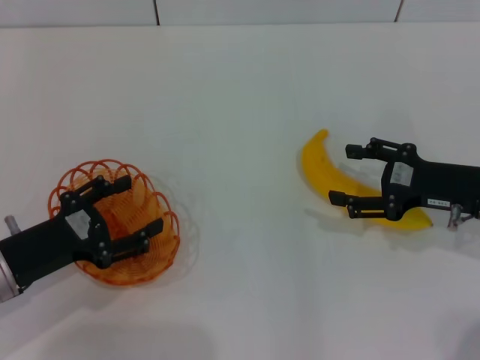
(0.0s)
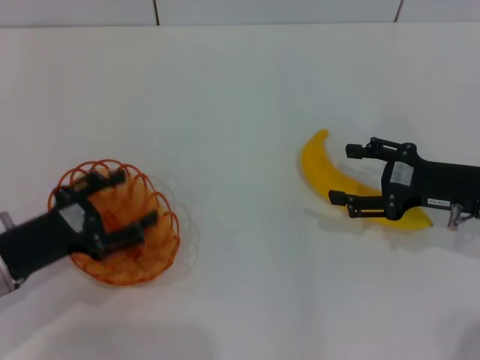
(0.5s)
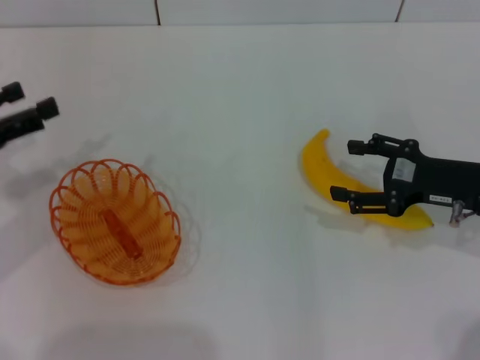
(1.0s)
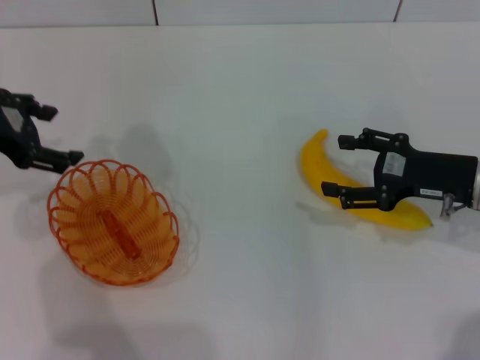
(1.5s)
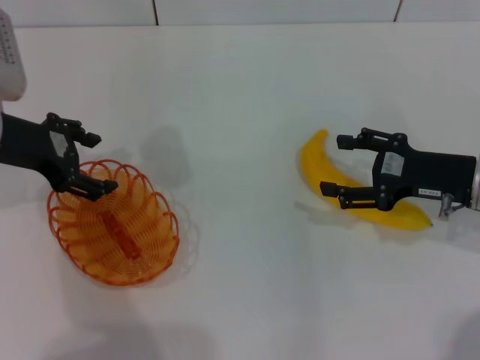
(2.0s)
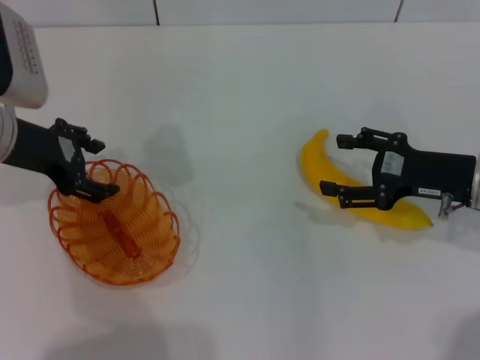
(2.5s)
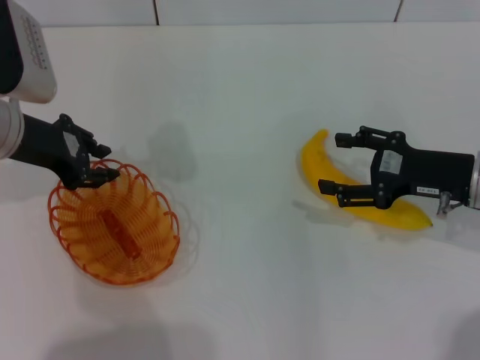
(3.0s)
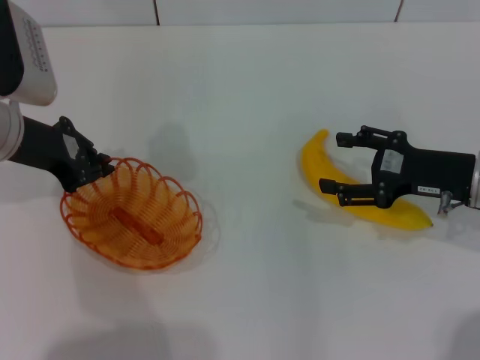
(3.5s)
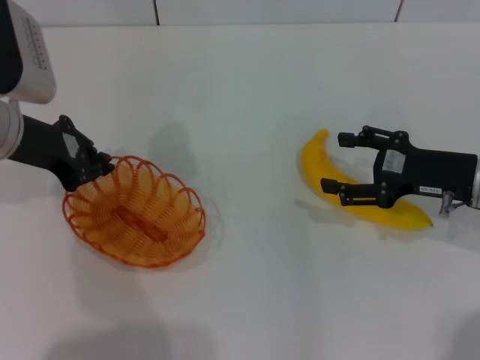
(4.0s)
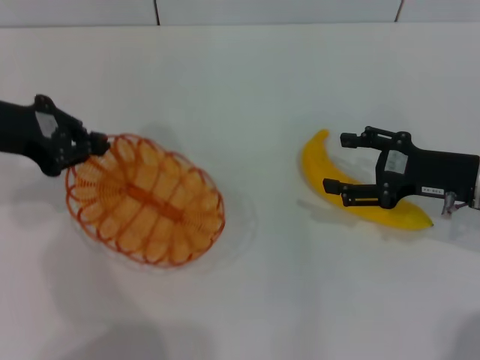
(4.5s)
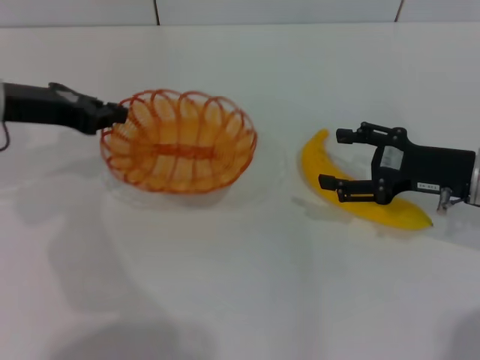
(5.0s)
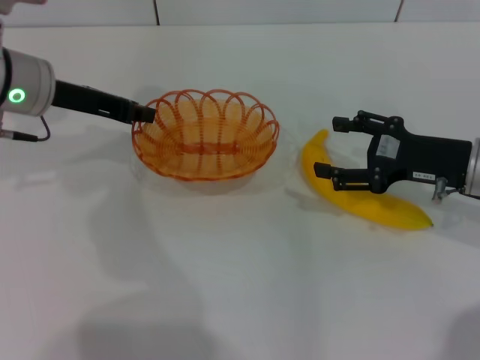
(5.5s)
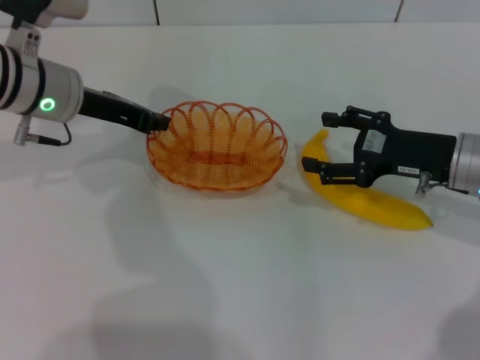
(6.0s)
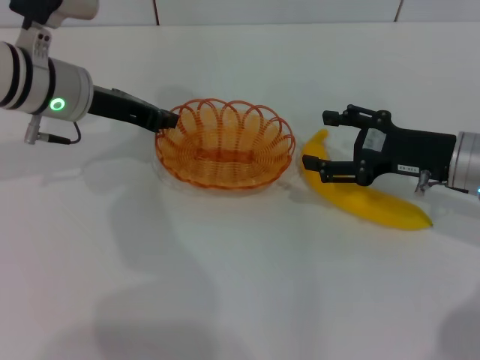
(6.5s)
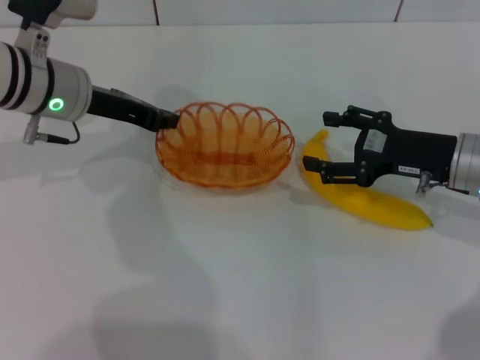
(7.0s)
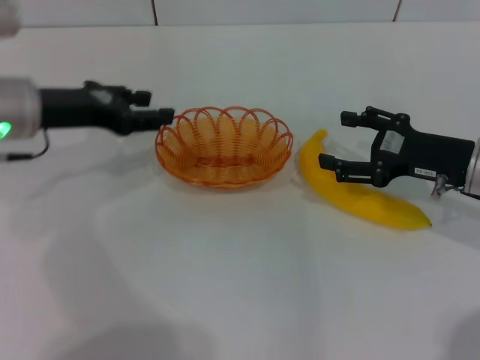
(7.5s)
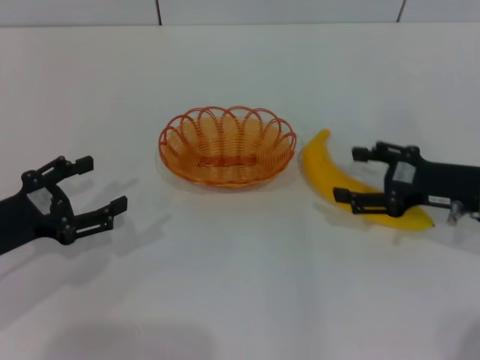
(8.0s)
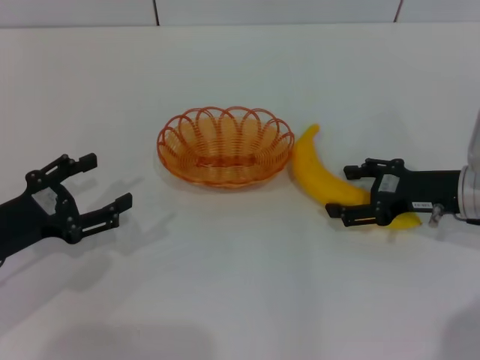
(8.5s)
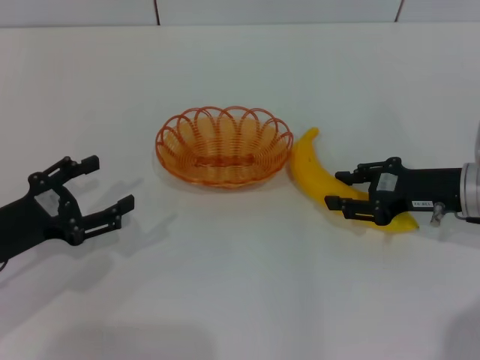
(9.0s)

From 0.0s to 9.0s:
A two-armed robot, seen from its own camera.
Step, from 0.0s to 4.0s: Pick up the basket with the left gripper.
Step, from 4.5s to 7.0s: Place the basket in the center of view with the left gripper.
From 0.0s to 2.0s: The left gripper is displaced forward and upward by approximately 15 cm.
From 2.0s to 4.5s: The left gripper closes up.
From 4.5s to 7.0s: The left gripper travels to the right and forward by about 10 cm.
From 7.0s to 9.0s: The right gripper closes up, while the left gripper moves backward, to the left and downward, about 20 cm, and opens.

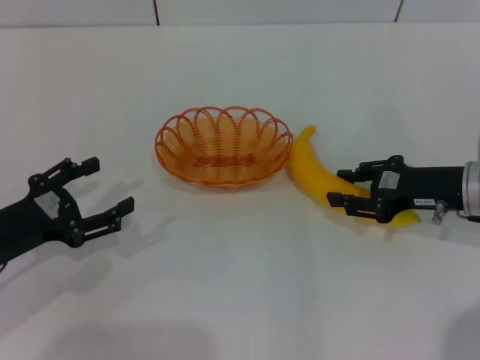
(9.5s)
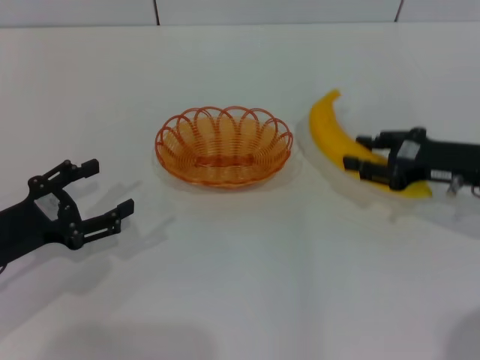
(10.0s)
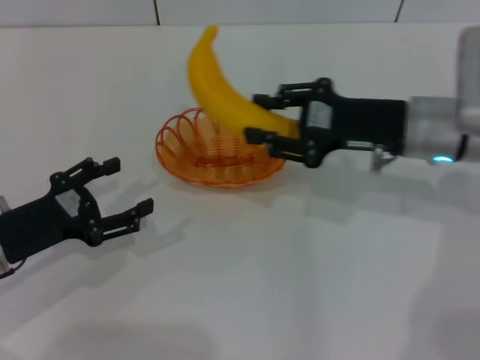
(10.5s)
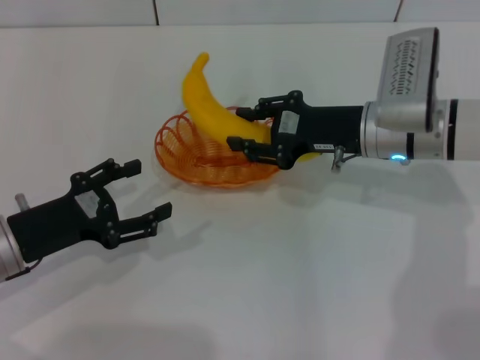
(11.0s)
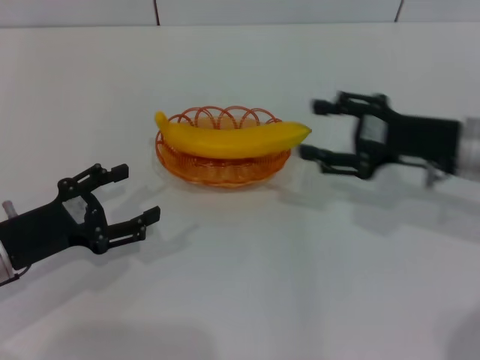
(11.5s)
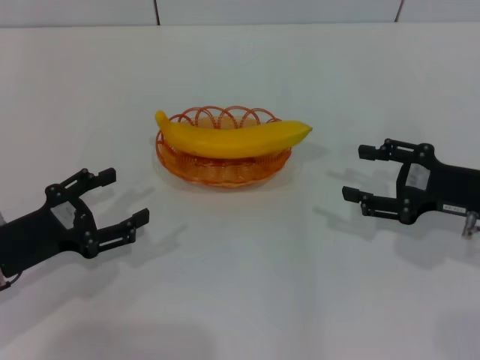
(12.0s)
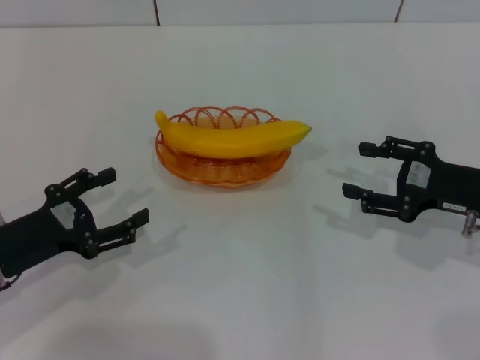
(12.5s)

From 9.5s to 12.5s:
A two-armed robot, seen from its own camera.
Step, from 10.5s to 11.5s: Place the banana into the basket with the right gripper.
From 9.5s to 11.0s: The right gripper shifts some 10 cm to the left and forward.
From 11.0s to 12.5s: The right gripper goes approximately 15 cm to the right and backward, and opens up.
